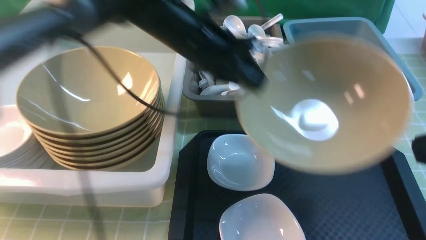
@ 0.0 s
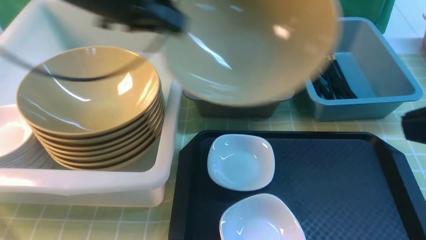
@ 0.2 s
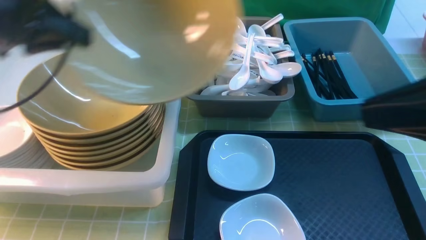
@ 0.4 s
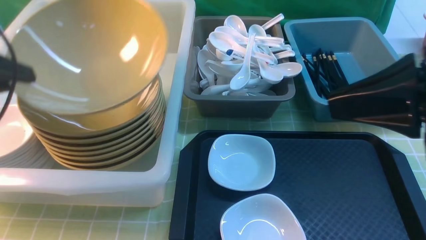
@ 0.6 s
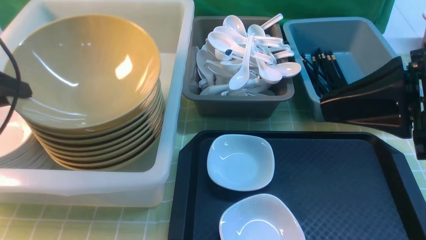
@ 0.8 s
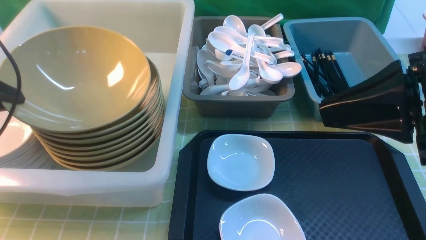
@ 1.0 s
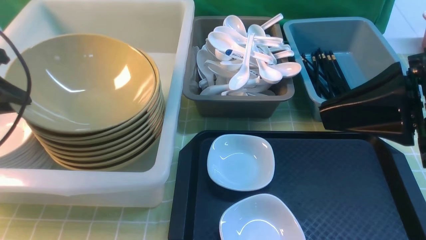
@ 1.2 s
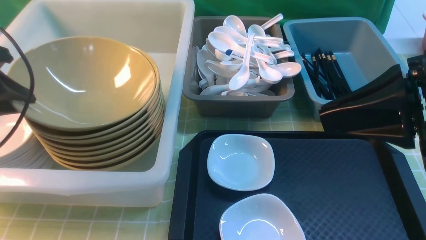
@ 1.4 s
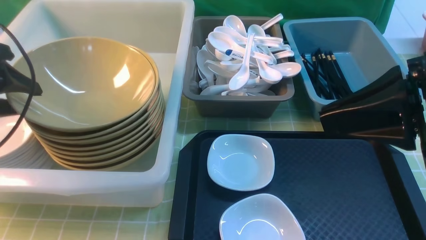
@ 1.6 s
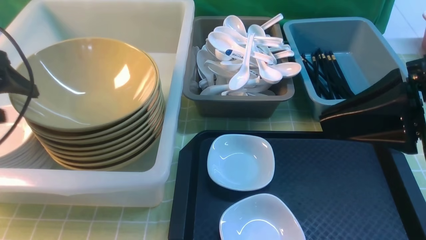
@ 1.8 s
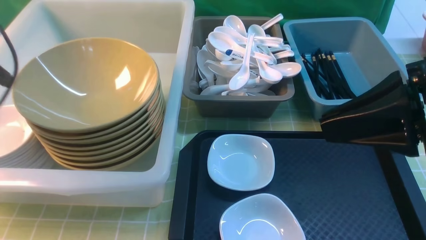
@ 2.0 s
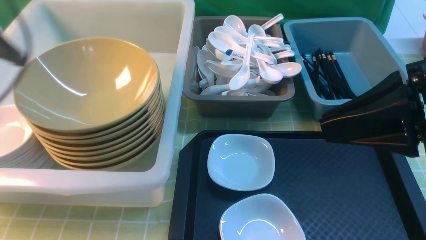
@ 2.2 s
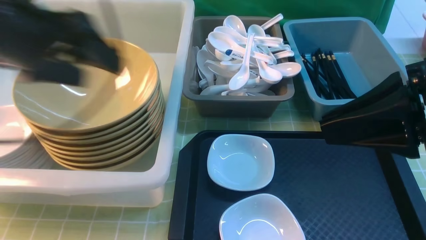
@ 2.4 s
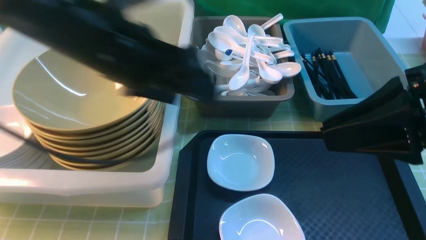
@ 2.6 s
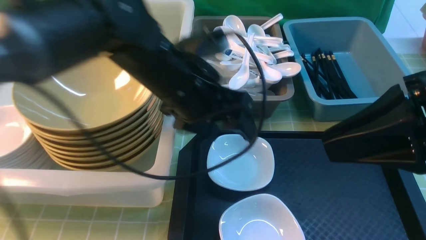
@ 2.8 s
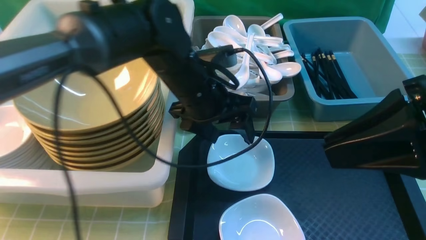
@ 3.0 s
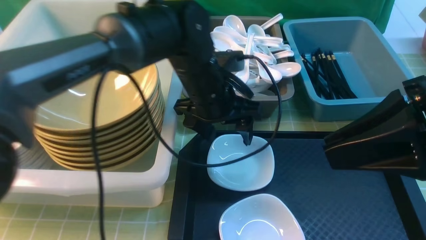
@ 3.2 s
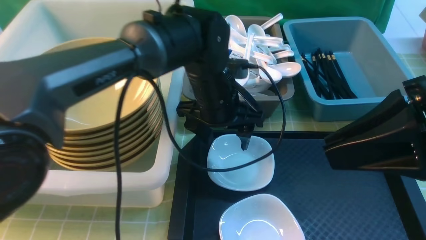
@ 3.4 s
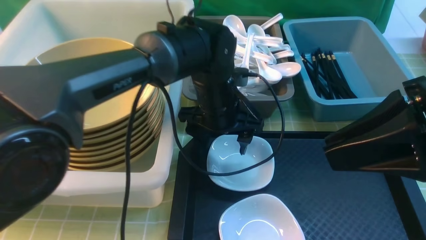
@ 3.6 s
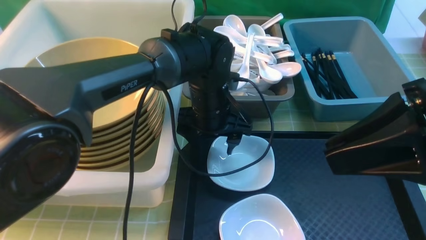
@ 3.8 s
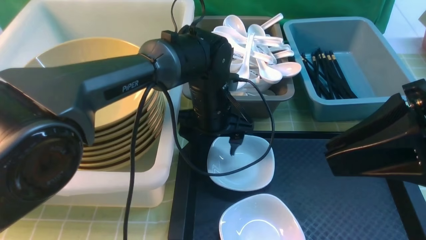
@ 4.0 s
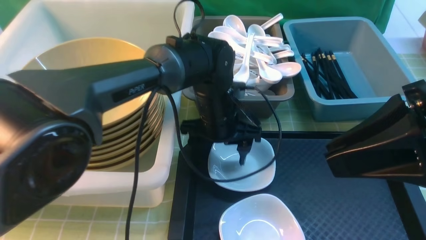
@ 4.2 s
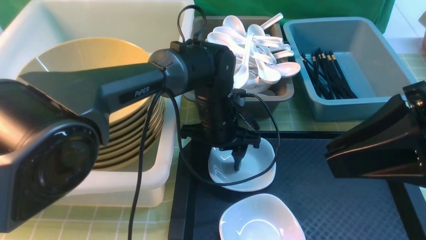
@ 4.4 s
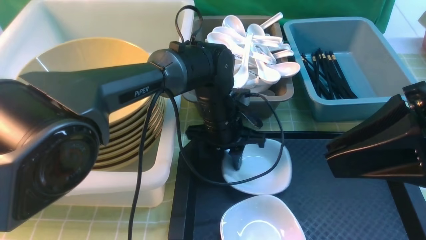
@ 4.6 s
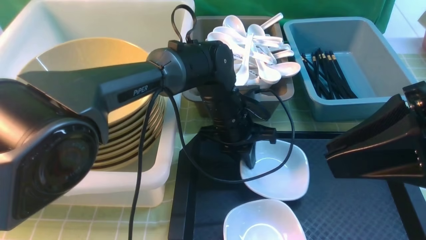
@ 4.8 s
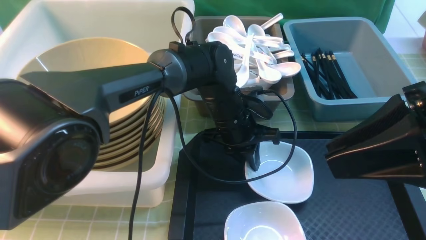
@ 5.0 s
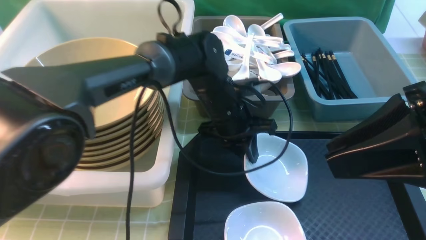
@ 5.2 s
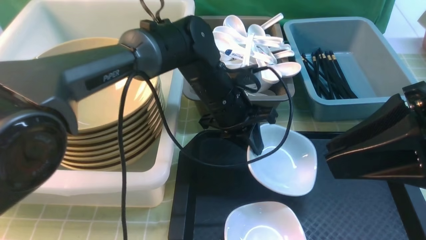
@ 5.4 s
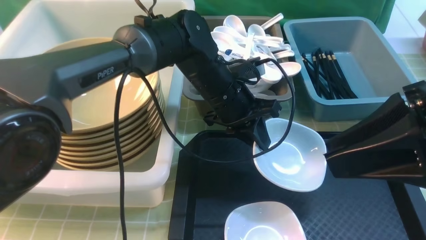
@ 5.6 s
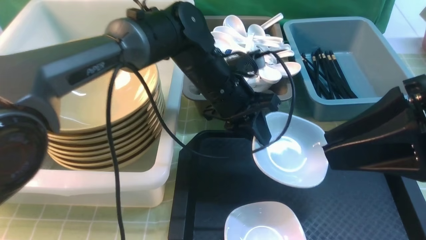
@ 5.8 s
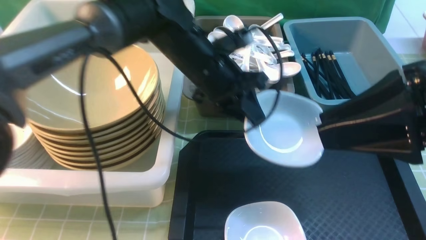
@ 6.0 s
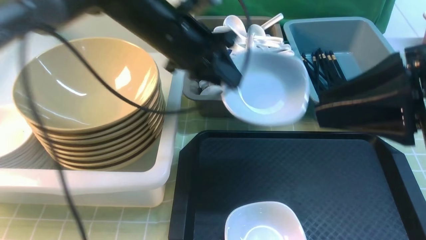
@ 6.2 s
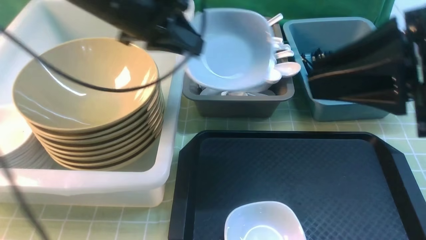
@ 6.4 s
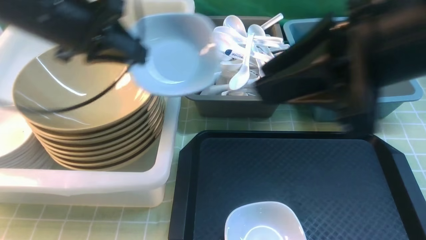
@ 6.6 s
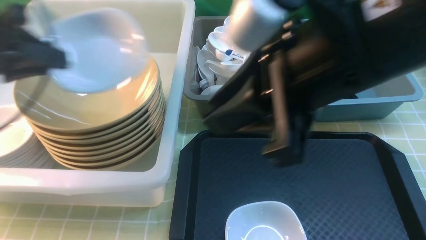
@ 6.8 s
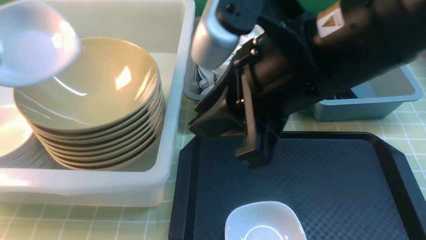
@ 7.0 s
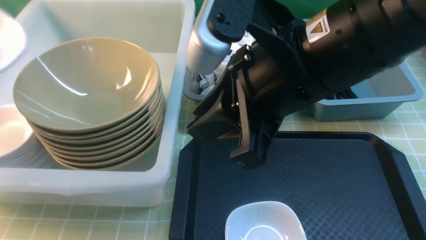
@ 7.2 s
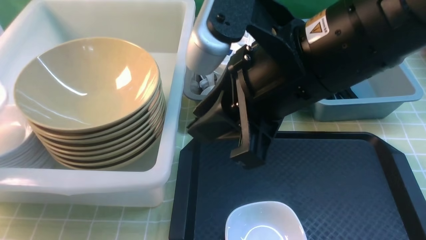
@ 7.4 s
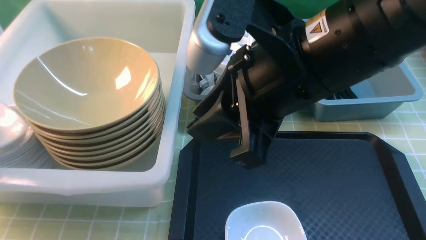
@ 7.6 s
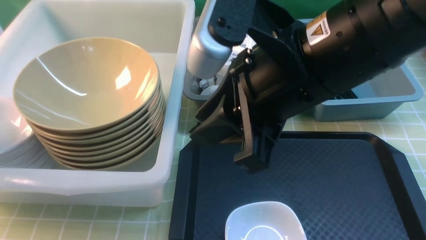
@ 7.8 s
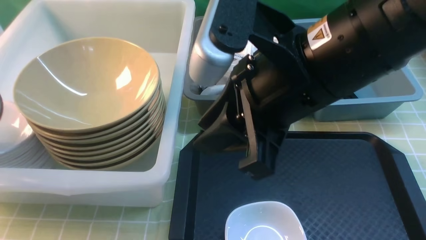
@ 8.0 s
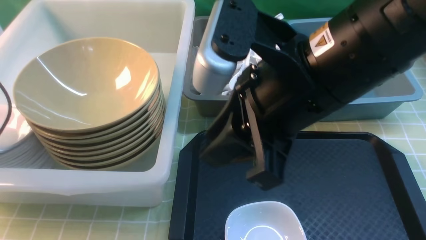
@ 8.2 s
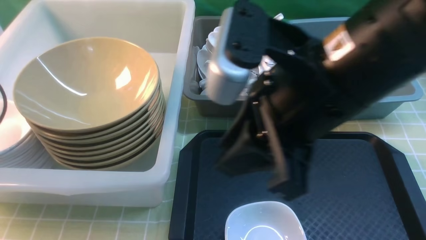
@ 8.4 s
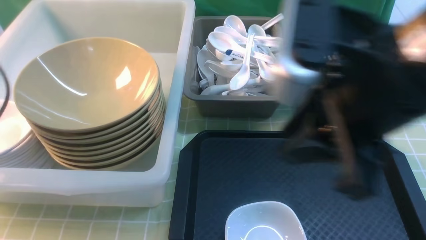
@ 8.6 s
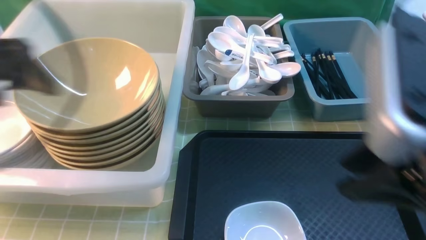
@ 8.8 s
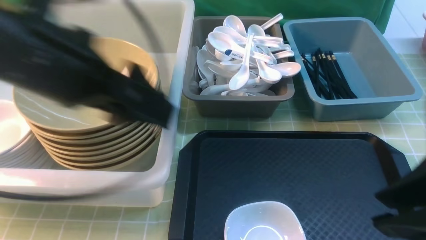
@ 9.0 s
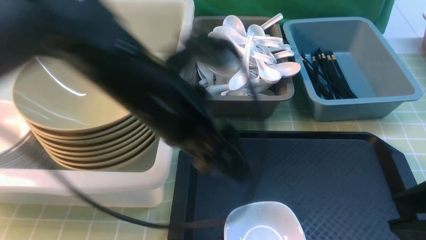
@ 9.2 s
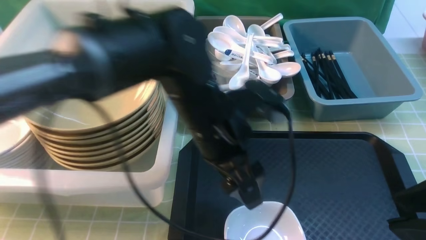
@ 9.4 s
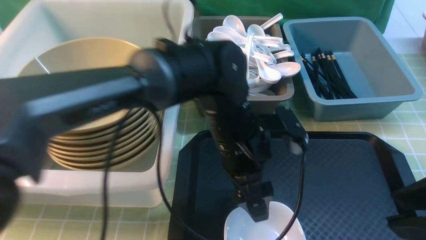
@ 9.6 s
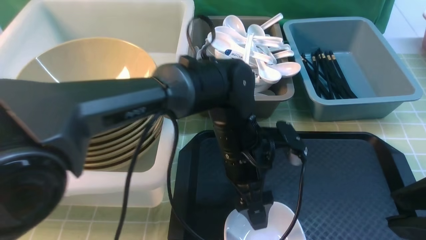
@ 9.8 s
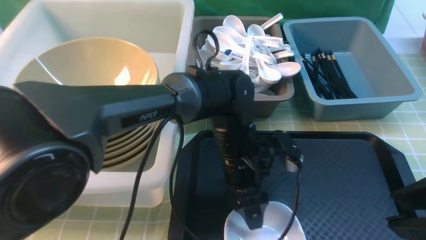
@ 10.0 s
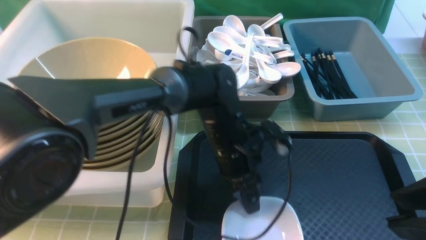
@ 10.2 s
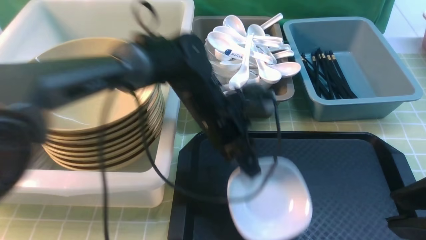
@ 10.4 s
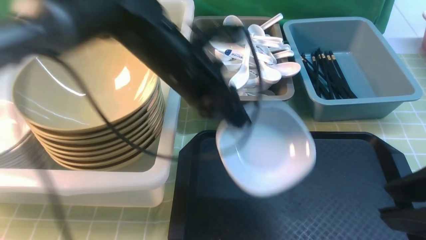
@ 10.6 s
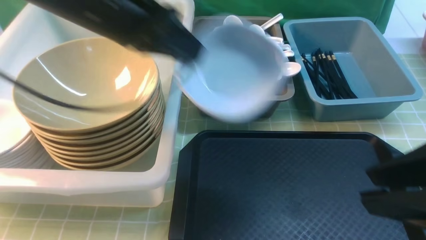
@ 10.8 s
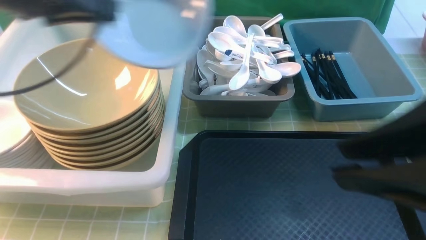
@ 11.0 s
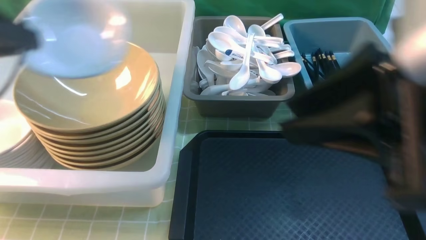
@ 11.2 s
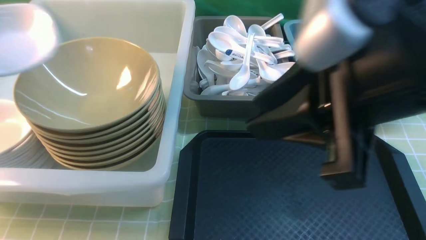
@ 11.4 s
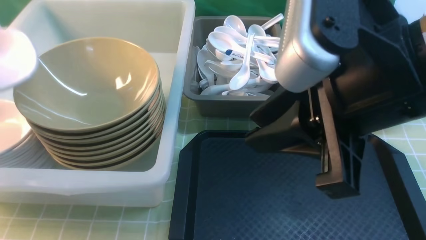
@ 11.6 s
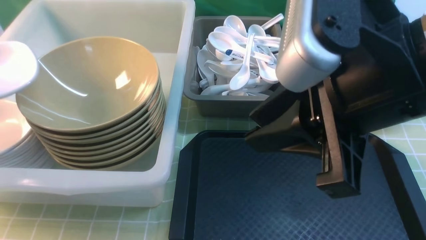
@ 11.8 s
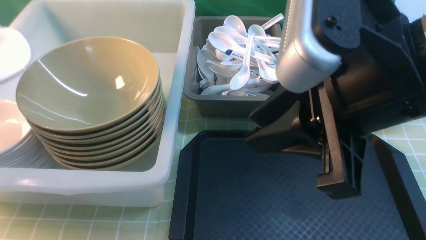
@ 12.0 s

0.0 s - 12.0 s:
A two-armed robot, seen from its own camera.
Task of the whole recording: on green table put chopsticks spoon bowls plates into blue grey white boxes.
Step, 0.2 s - 1.8 s: use the left arm to put the noodle bowl into the large storage box on the left.
Step, 2.0 s - 5.4 s: use the left arm to grab the plate.
Step, 5.6 s - 8.0 s: use the left arm to put the plate into the large storage box on the left.
Step, 8.2 s - 10.4 s: use the left arm to grab the plate.
0.0 s - 1.6 s: The left gripper moves to the left and backward, about 30 cm, and opens; the right gripper travels forward by some 5 cm.
1.6 s - 3.0 s: The left gripper travels to the right by about 30 cm.
3.0 s - 4.4 s: The left gripper shifts approximately 10 cm downward.
4.4 s - 6.0 s: The left gripper is displaced upward by approximately 10 cm, and closes up.
6.0 s - 7.6 s: The left gripper goes about 40 cm to the left, while the right gripper goes roughly 15 cm to the left.
7.6 s - 9.0 s: The left gripper heads to the right, covering roughly 30 cm, and opens its fingers. Meanwhile the right gripper moves to the right and backward, roughly 15 cm.
9.0 s - 10.4 s: The left gripper heads downward, to the right and forward, covering roughly 20 cm, and closes its fingers.
10.4 s - 12.0 s: The left gripper moves to the left, approximately 40 cm; the right gripper travels to the left and forward by approximately 10 cm.

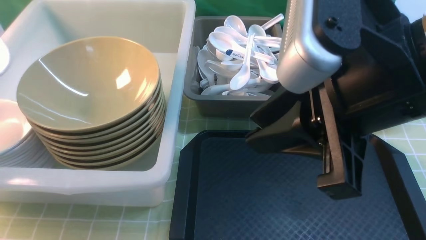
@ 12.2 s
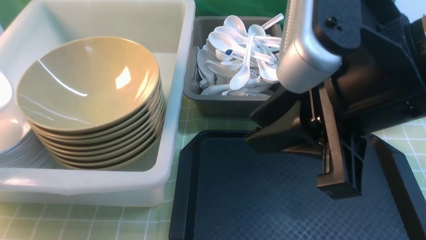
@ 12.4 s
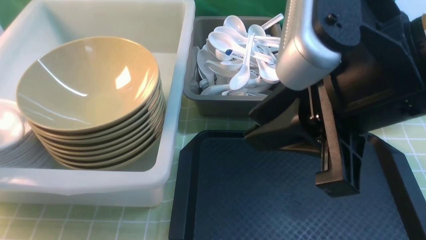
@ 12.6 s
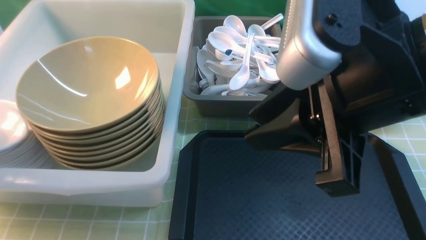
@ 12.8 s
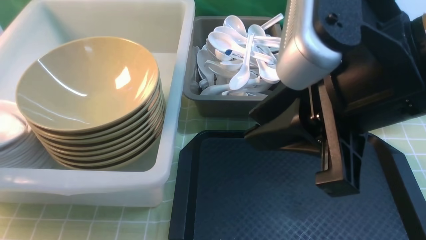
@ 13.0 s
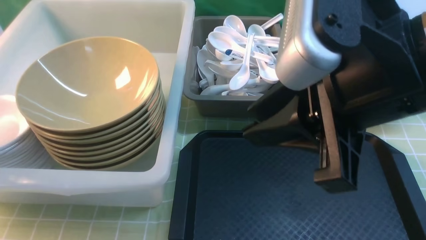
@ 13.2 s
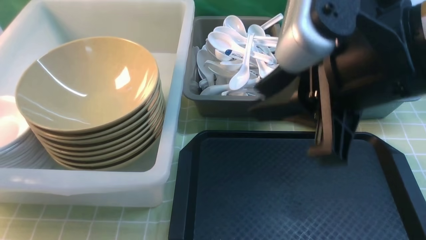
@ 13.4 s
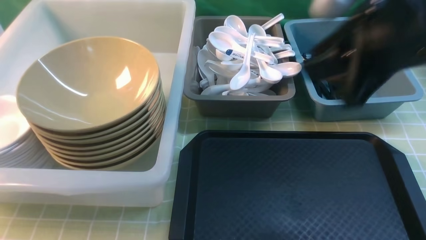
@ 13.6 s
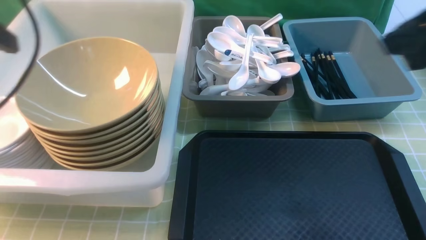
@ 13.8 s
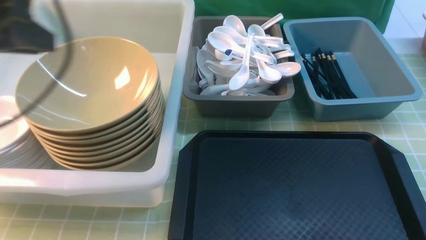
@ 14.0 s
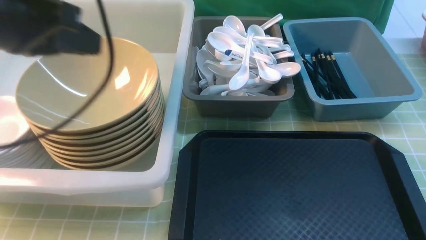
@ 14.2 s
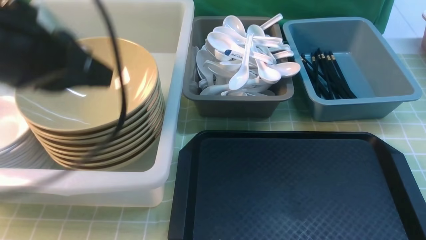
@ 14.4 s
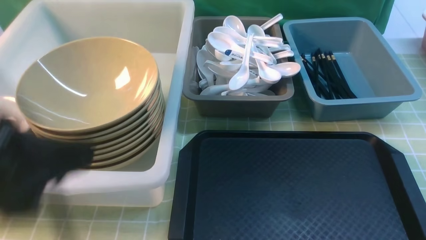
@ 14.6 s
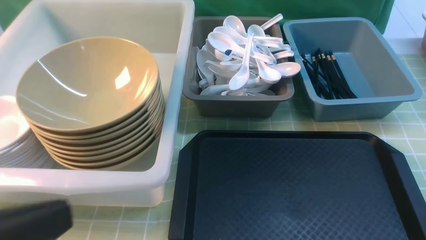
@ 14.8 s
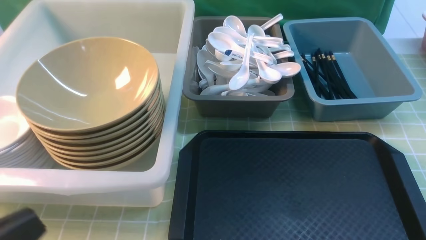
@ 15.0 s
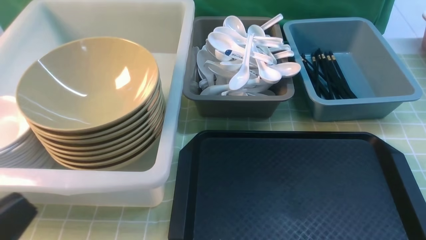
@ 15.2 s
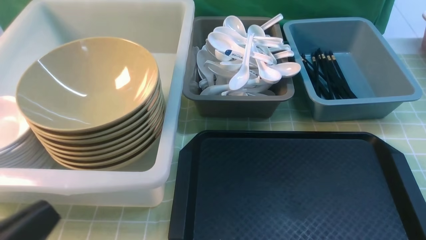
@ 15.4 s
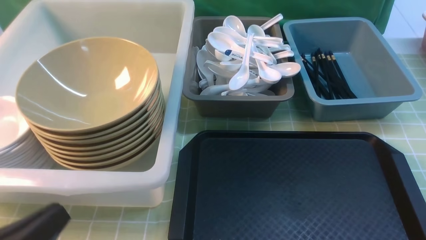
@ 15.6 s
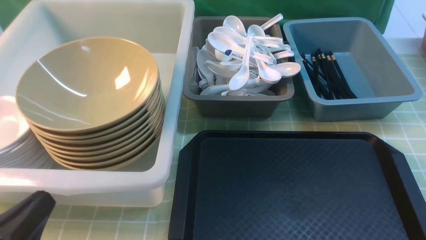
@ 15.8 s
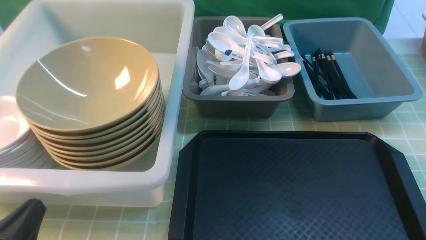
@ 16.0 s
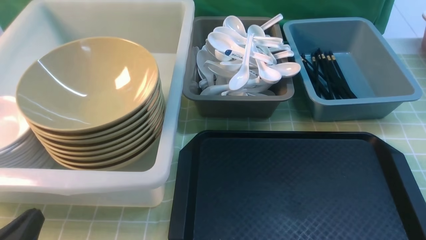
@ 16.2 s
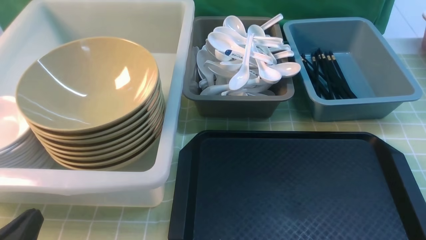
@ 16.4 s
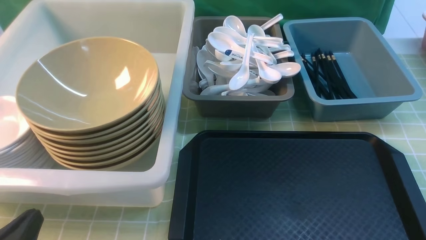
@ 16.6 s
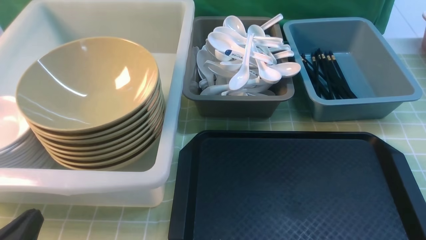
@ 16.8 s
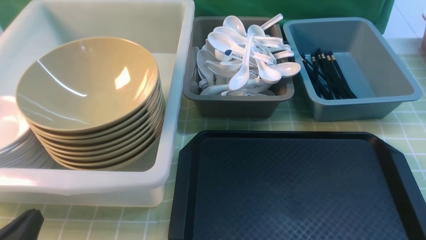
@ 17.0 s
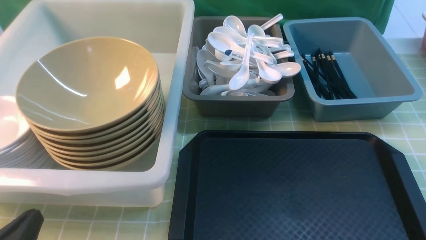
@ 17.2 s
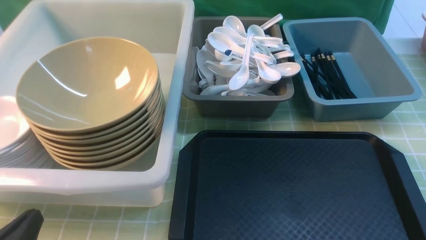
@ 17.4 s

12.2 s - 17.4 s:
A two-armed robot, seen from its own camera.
Task of the whole recording: on green table put chopsticks spoon bowls plates into blue grey white boxes.
12.2 s - 14.0 s: The right gripper is displaced to the right by approximately 15 cm. The left gripper heads to the right and upward, covering roughly 20 cm, and opens and closes again.
14.0 s - 15.6 s: The left gripper shifts some 25 cm backward and downward.
15.6 s - 17.4 s: The left gripper travels downward by approximately 5 cm.
